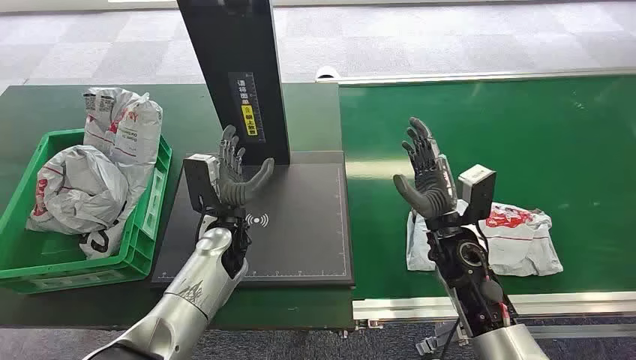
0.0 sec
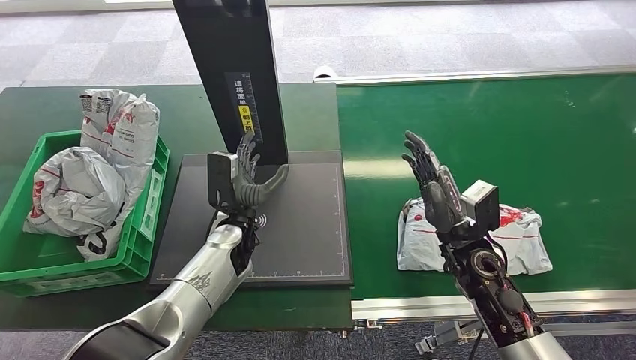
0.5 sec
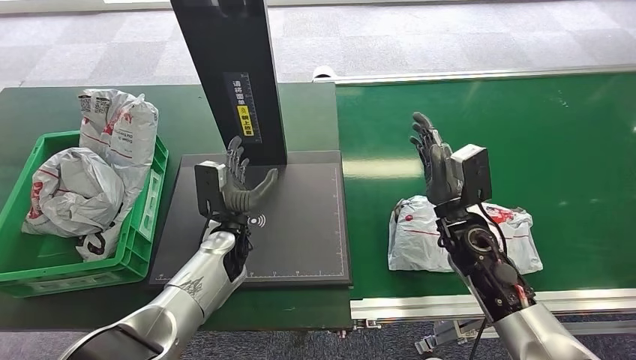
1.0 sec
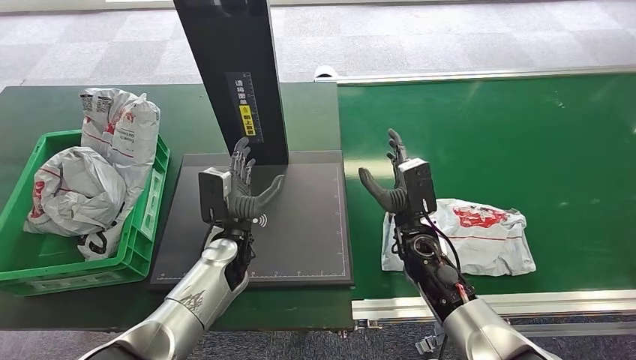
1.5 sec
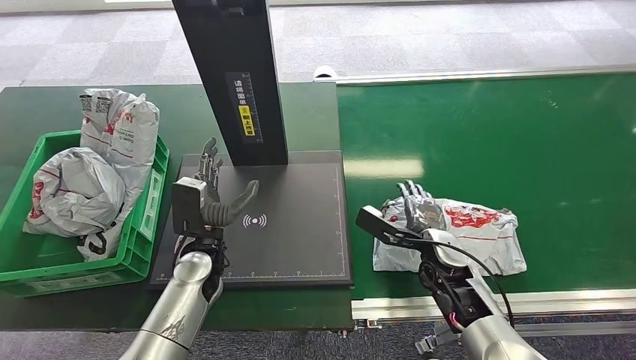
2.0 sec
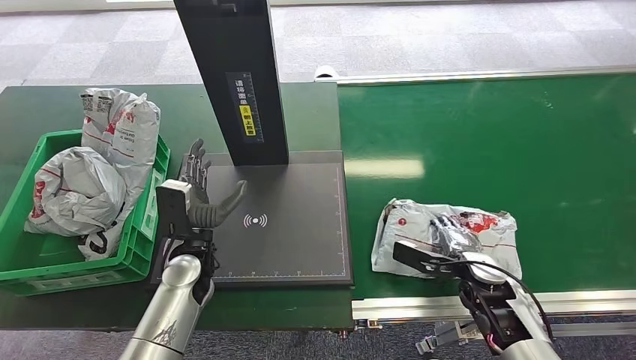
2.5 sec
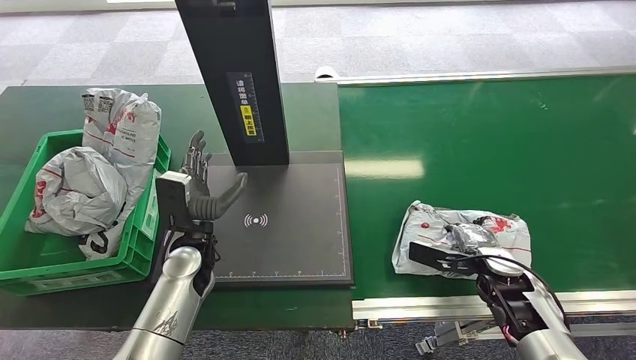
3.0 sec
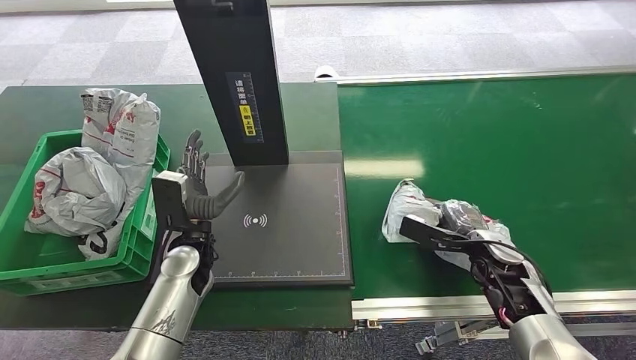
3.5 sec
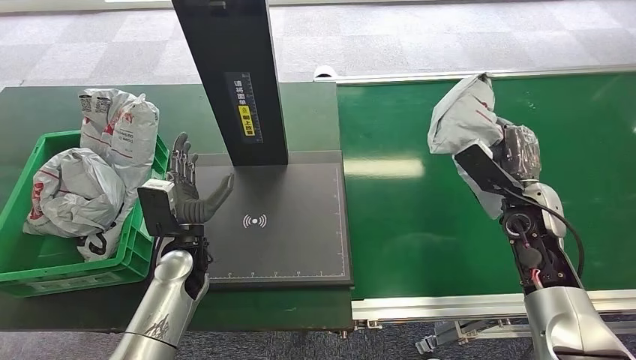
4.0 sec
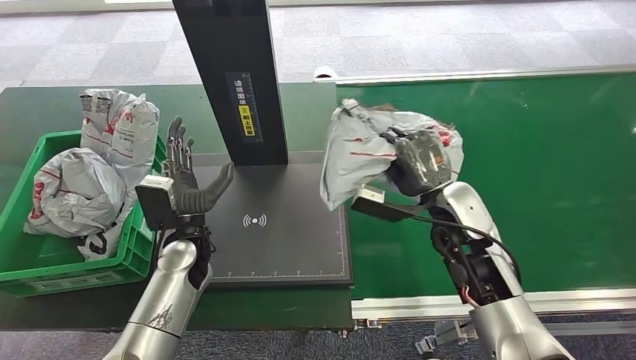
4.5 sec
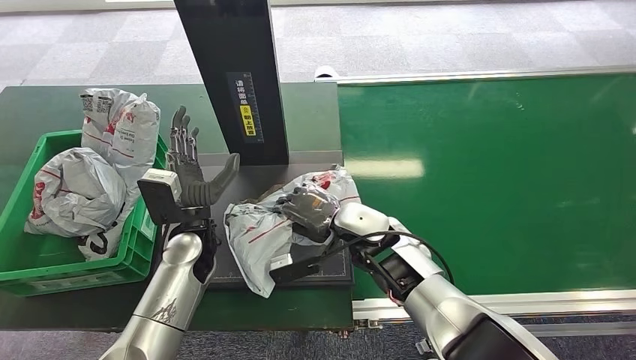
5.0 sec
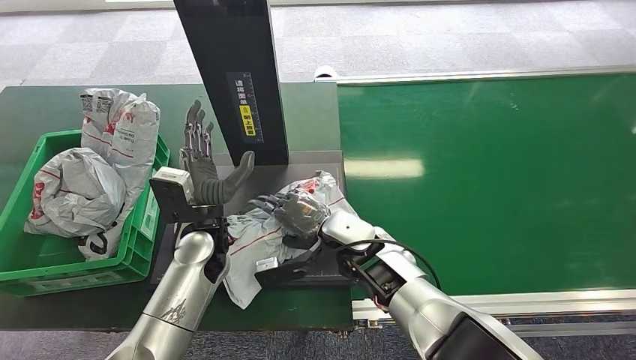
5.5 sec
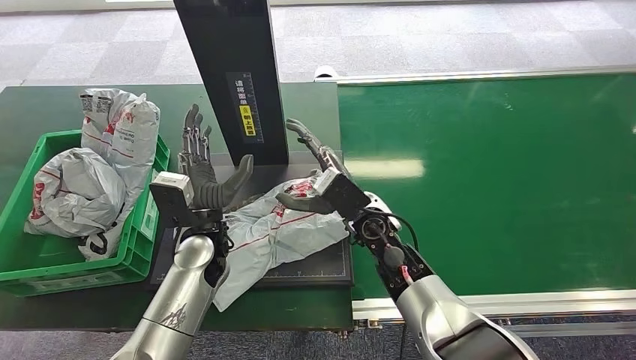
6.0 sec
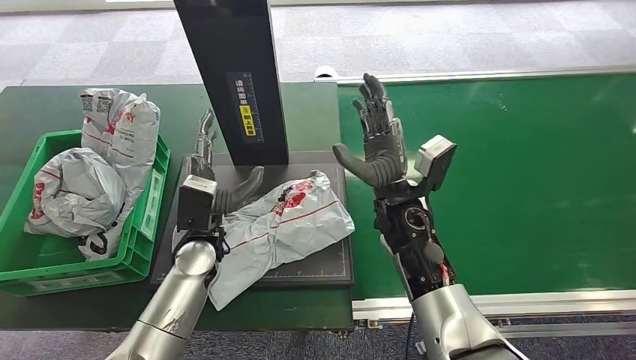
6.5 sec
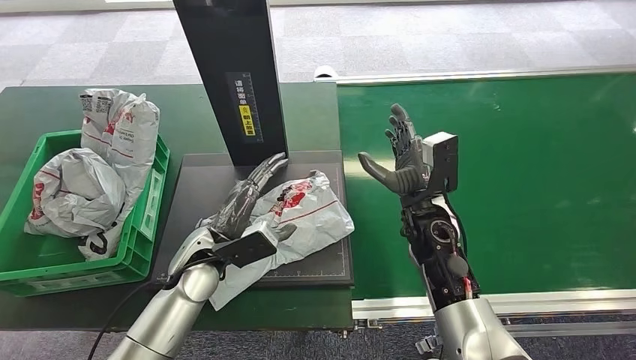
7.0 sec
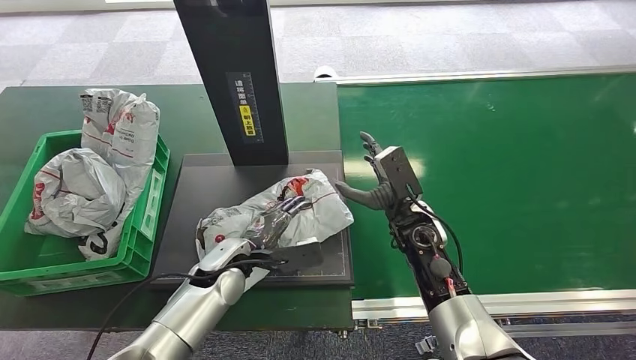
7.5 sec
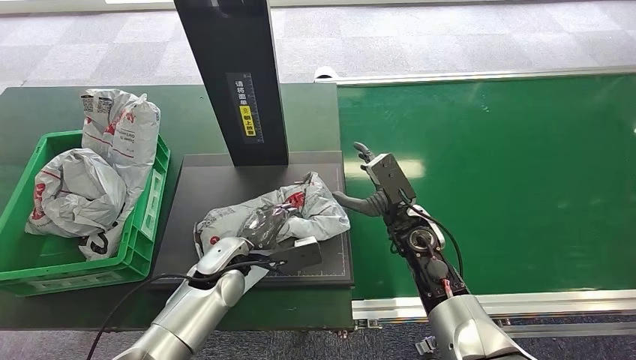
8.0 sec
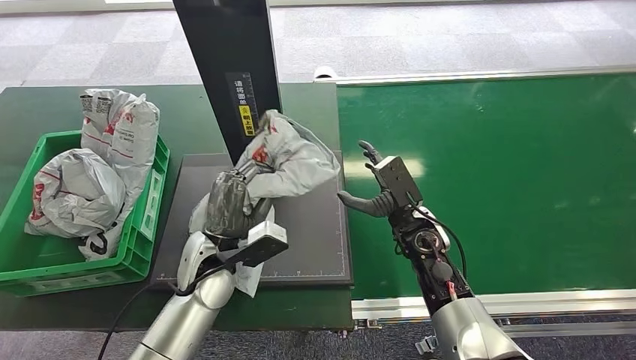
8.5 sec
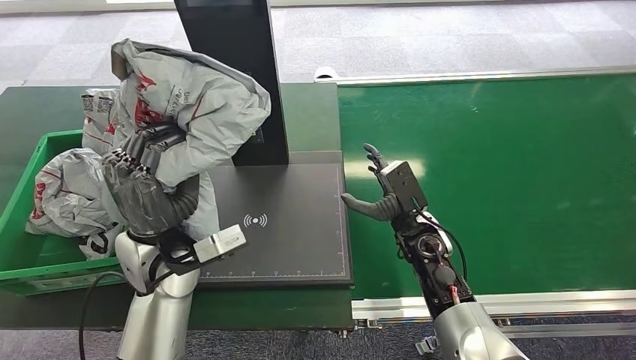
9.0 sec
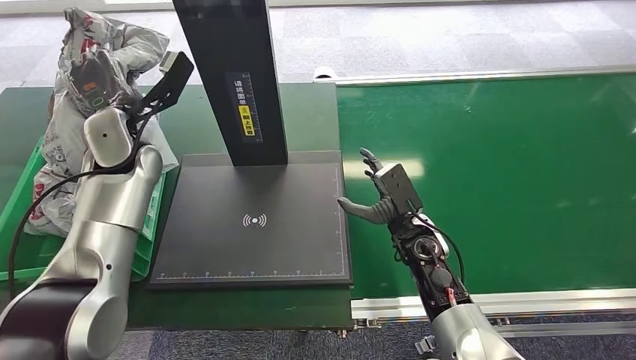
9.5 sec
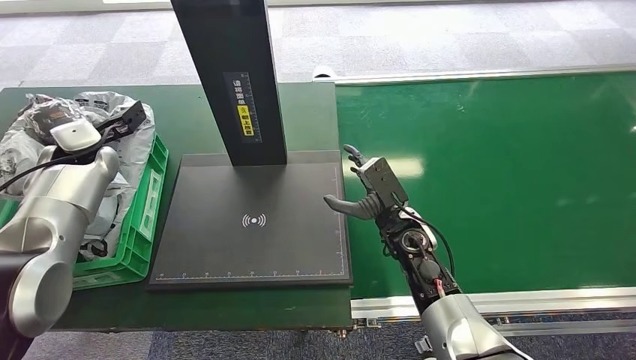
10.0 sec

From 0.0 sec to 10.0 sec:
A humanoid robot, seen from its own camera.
Step, from 0.0 sec to 3.5 sec: Pick up the package from the conveyor belt.
Step, from 4.0 sec to 5.5 sec: Place the package onto the inbound machine.
Step, from 6.0 sec to 8.0 sec: Pick up the package from the inbound machine.
Step, from 9.0 sec to 10.0 sec: Place the package into the parcel locker.
From 6.0 sec to 8.0 sec: The left hand goes some 5 cm downward. Meanwhile the right hand is displaced to the right by roughly 10 cm.

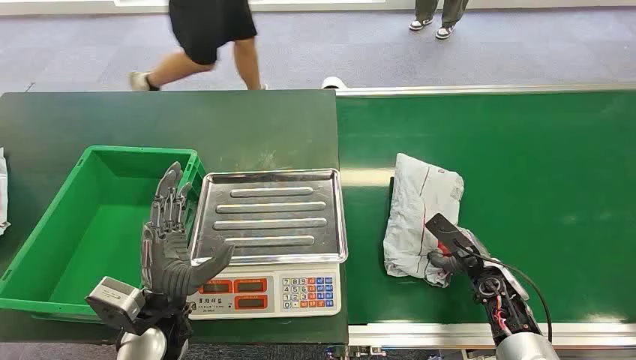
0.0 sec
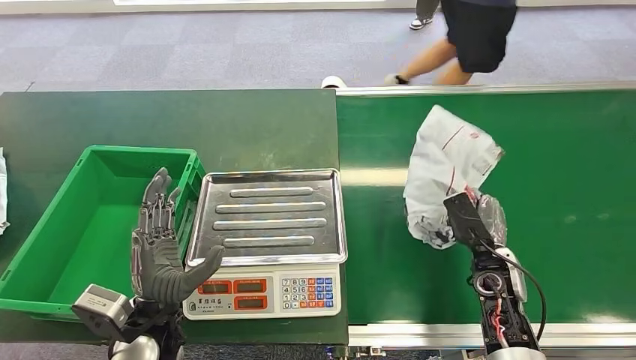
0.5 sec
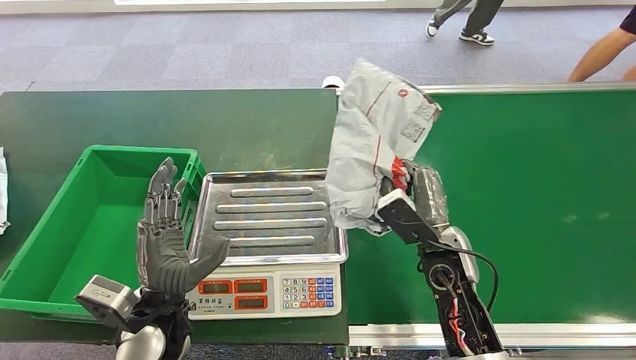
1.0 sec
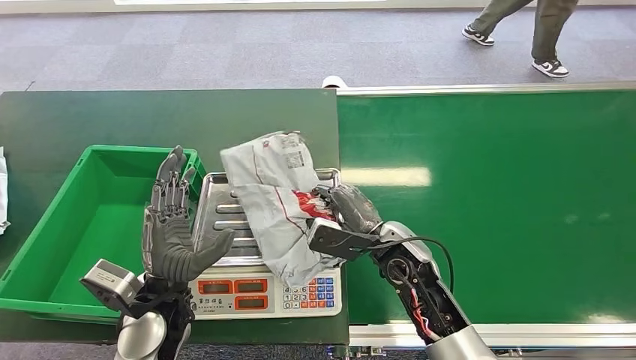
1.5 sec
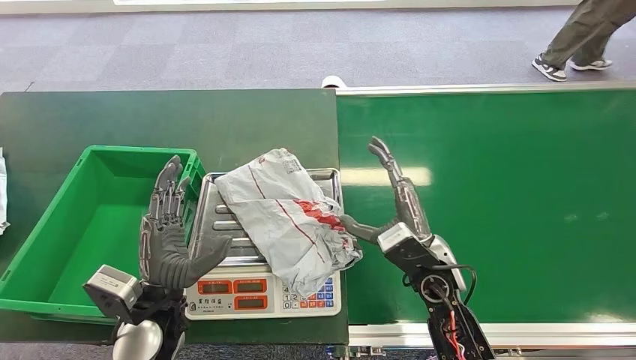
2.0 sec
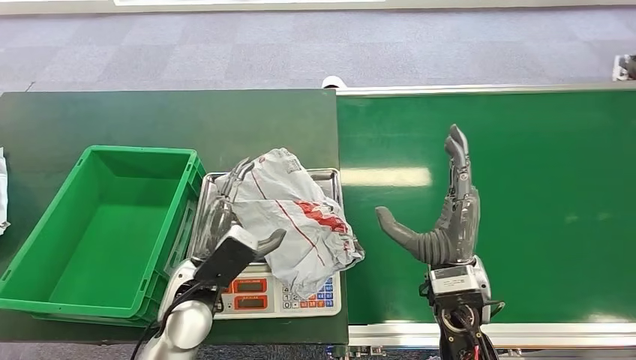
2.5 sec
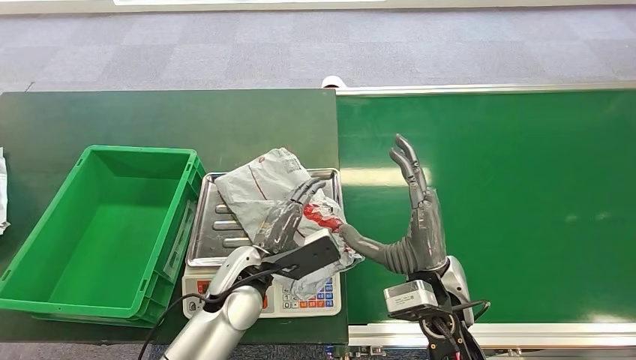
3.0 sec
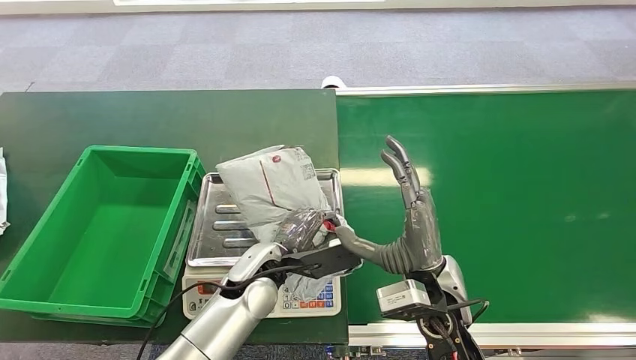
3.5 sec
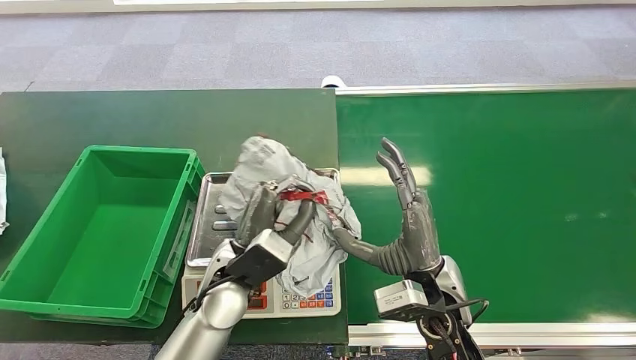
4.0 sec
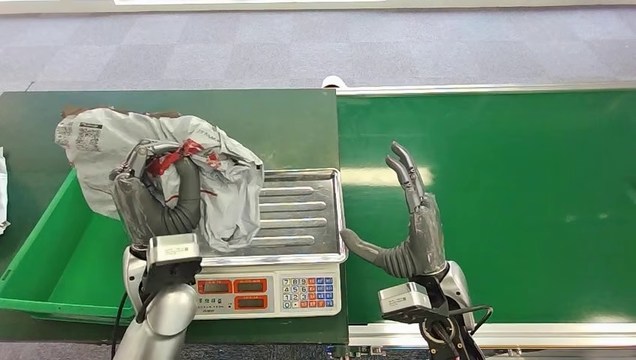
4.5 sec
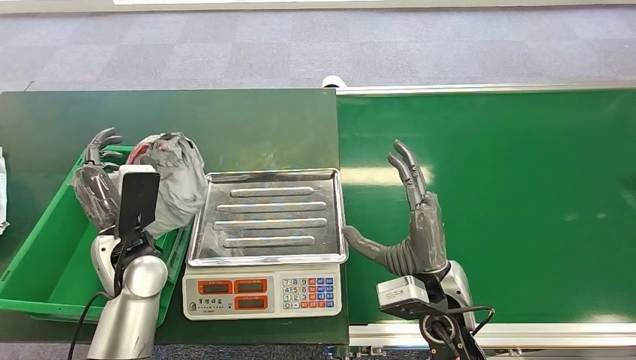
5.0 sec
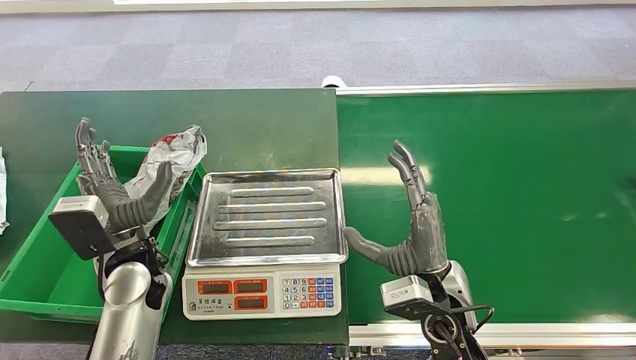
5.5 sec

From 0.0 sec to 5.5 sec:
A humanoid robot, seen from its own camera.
Step, from 0.0 sec to 1.0 sec: Pick up the package from the conveyor belt.
Step, from 1.5 sec to 2.0 sec: Place the package onto the inbound machine.
Step, from 2.5 sec to 3.0 sec: Pick up the package from the inbound machine.
Step, from 5.0 sec to 5.5 sec: Place the package into the parcel locker.
From 2.0 sec to 3.5 sec: The left hand heads to the right and forward, covering approximately 15 cm. Meanwhile the right hand ends up some 5 cm from where it was.
From 3.5 sec to 5.5 sec: The left hand heads to the left, covering roughly 15 cm.
